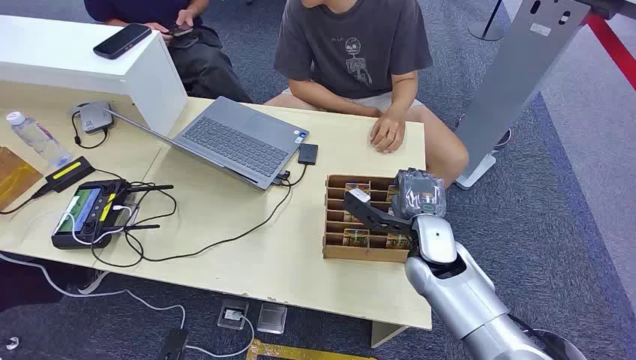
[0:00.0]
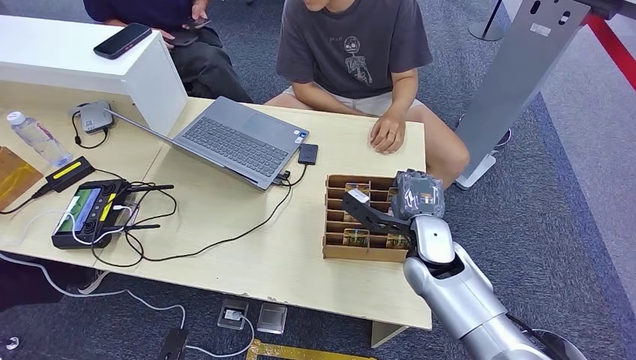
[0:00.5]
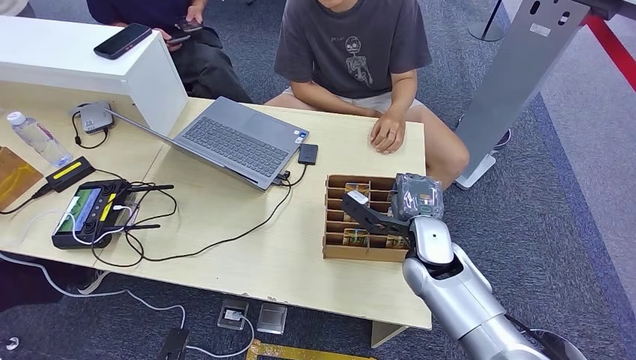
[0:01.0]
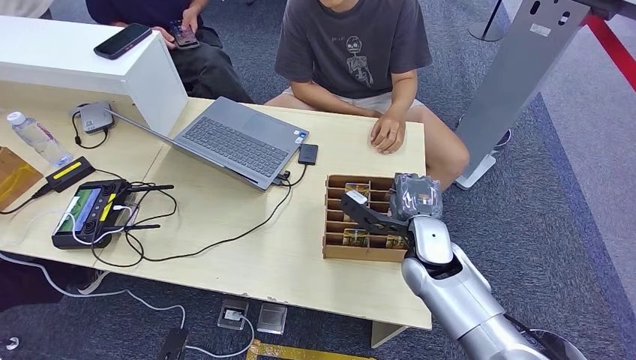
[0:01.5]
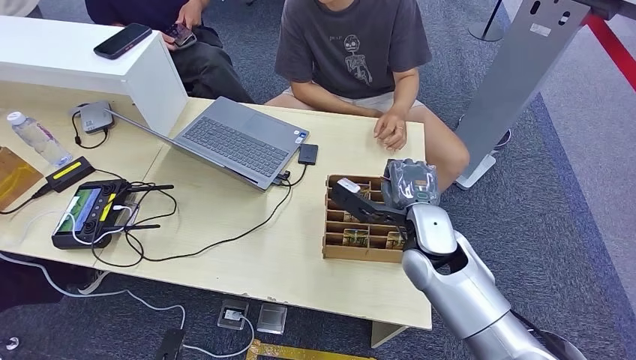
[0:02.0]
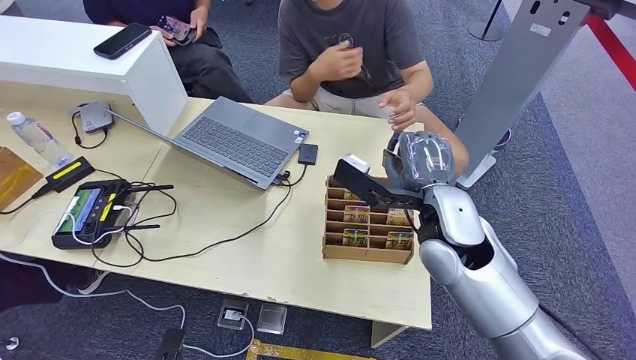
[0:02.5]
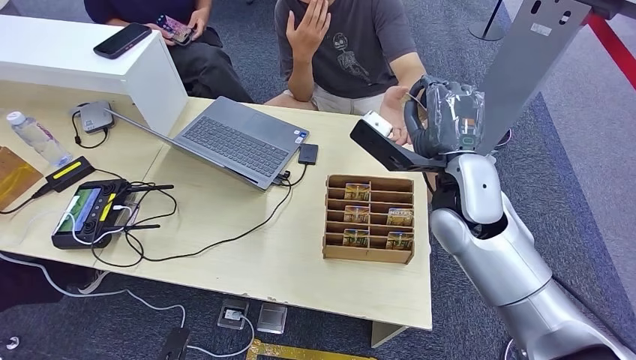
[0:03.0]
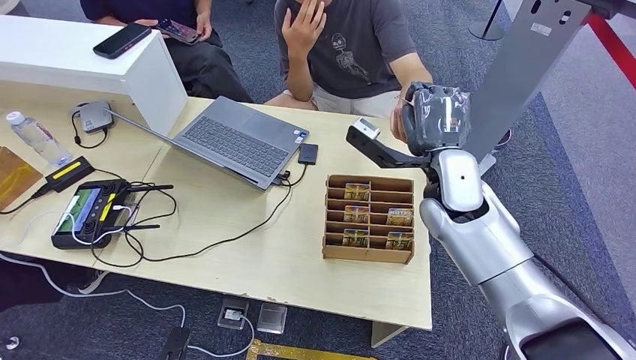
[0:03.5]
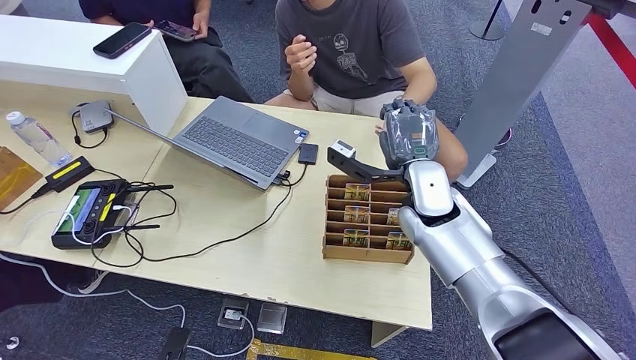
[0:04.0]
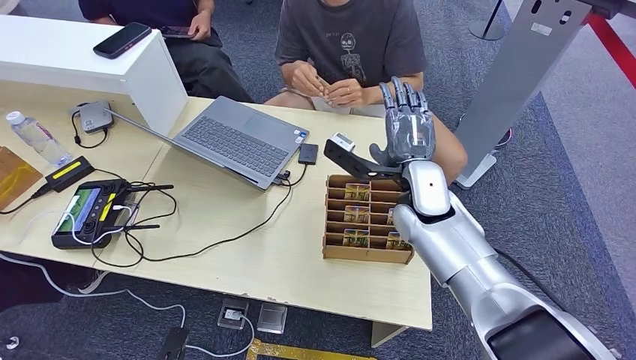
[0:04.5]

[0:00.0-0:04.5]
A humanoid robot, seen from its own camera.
Step, 0:00.0 to 0:02.5: Pick up the key card from the card box.
Step, 0:03.0 to 0:04.0: Hand the key card to the target.
0:02.0 to 0:04.5: The right hand heads forward, covering roughly 5 cm, and travels upward and back again, approximately 10 cm each way.
